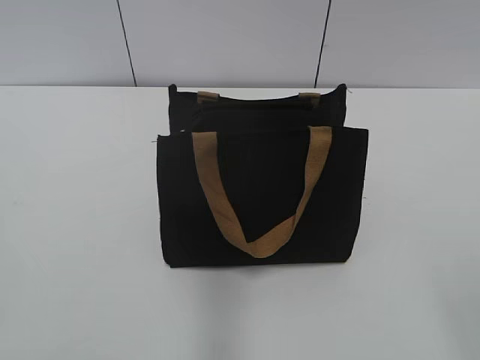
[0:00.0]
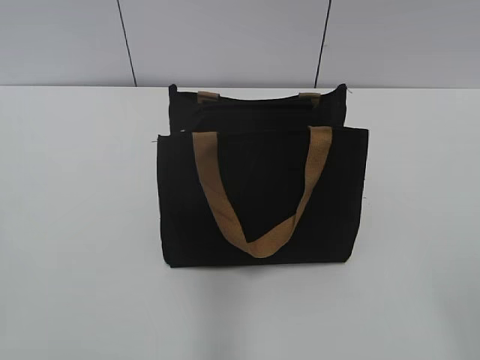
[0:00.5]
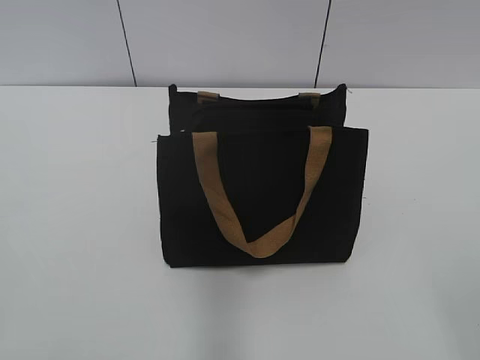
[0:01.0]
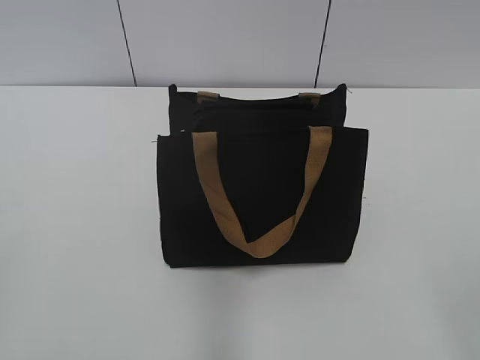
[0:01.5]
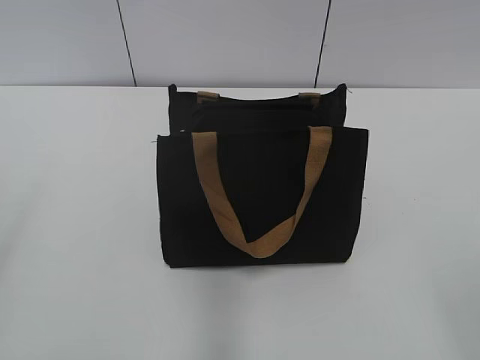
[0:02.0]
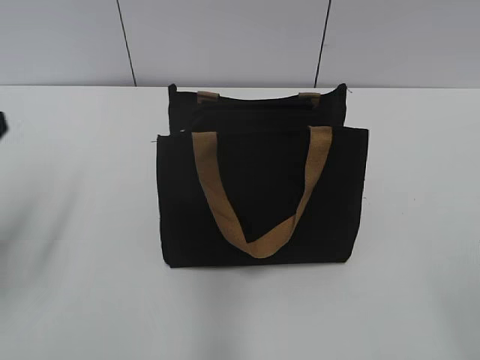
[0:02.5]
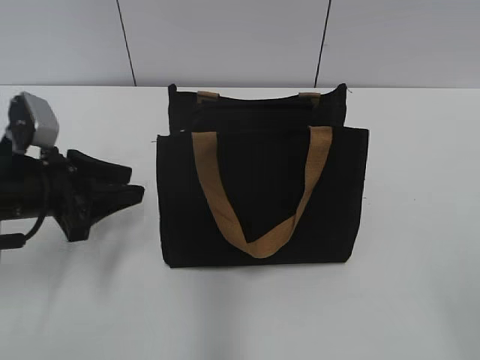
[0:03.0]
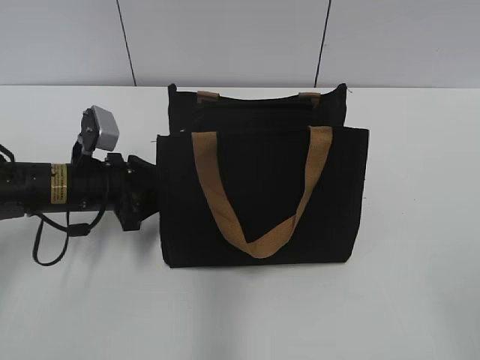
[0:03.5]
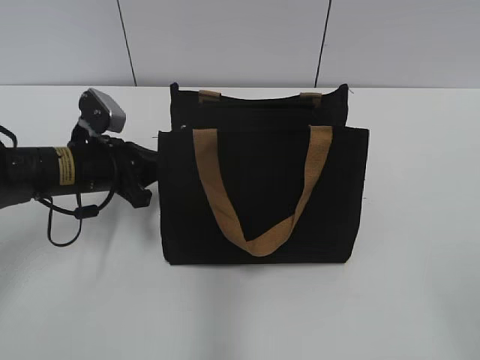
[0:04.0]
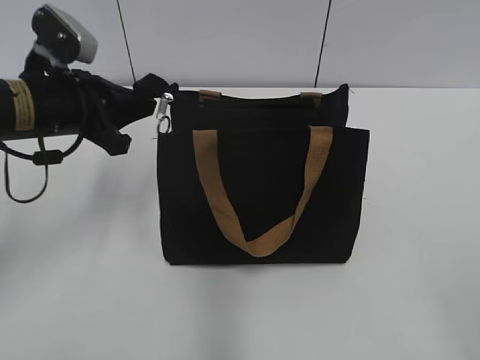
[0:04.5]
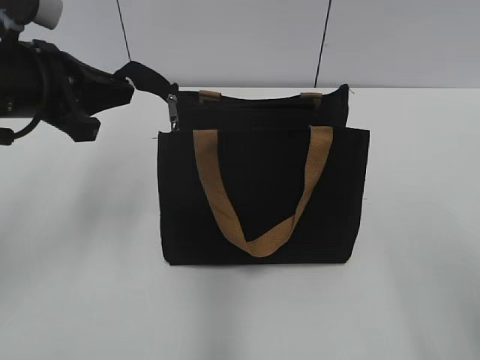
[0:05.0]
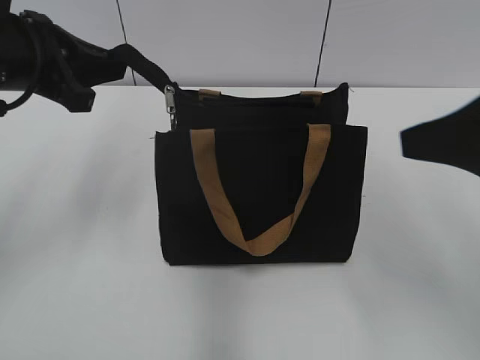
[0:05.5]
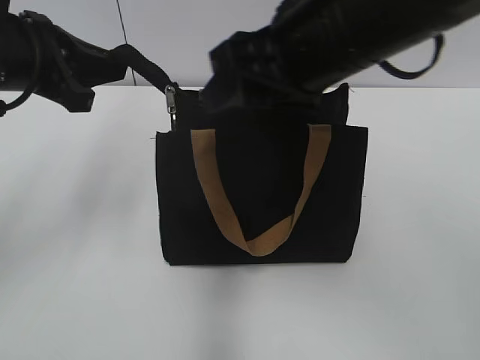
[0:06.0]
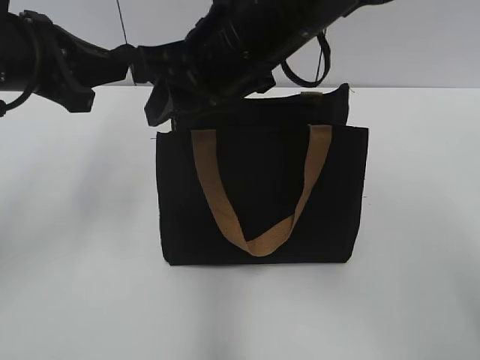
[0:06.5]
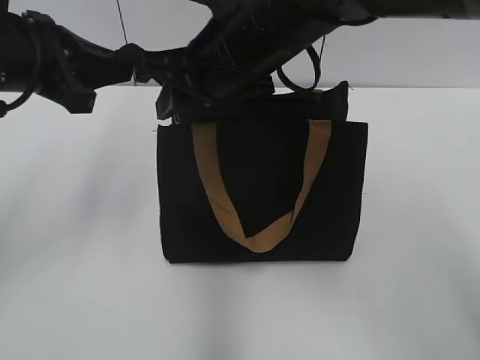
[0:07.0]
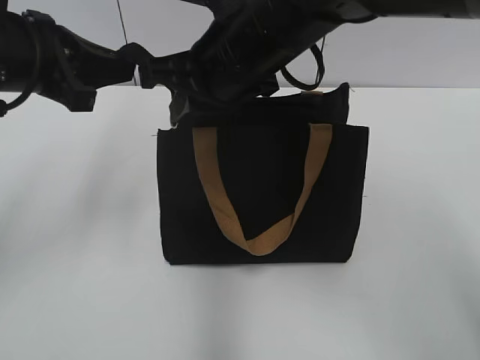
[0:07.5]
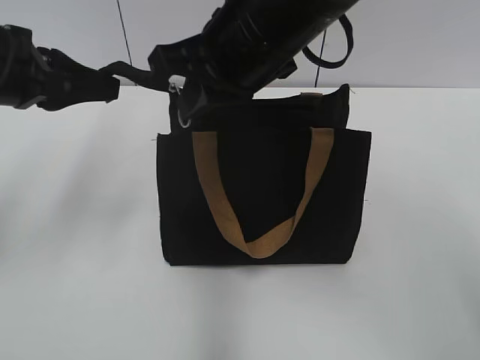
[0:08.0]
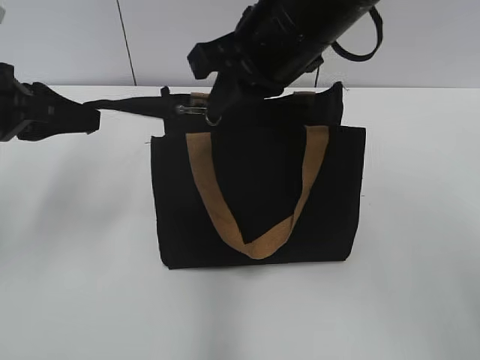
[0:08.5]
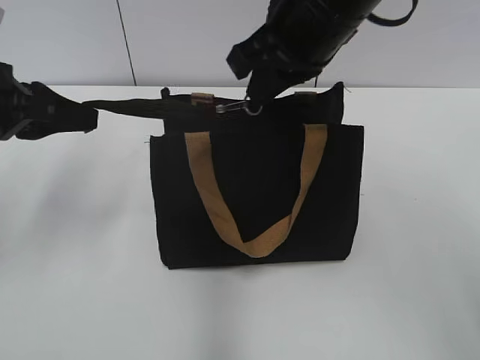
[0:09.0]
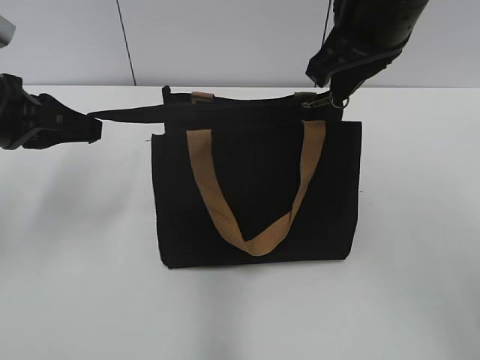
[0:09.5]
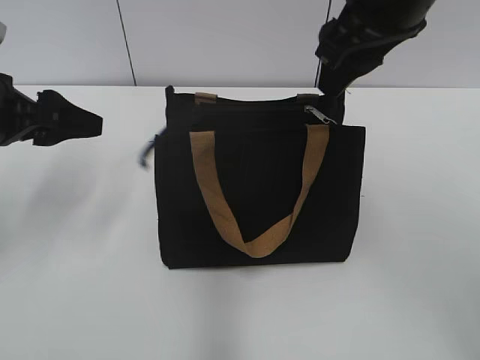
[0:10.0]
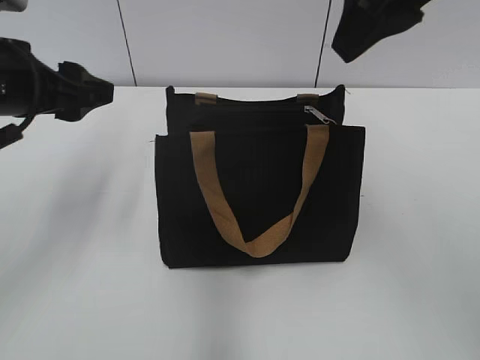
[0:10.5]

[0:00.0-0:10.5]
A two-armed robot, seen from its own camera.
Step, 0:00.0 to 0:09.5: Zip up the bag with your right hand.
0:02.0 to 0:04.0: The left gripper heads forward, downward and to the right, covering approximately 35 cm, and closes.
0:04.0 to 0:06.5: The right gripper is displaced forward and to the left by approximately 40 cm, and closes. The left gripper moves upward, about 15 cm.
0:06.5 to 0:08.5: The left gripper shifts by roughly 5 cm. Meanwhile the right gripper closes its fingers.
0:08.5 to 0:10.5: The right gripper shifts some 15 cm upward and to the right, and opens up, while the left gripper opens up.

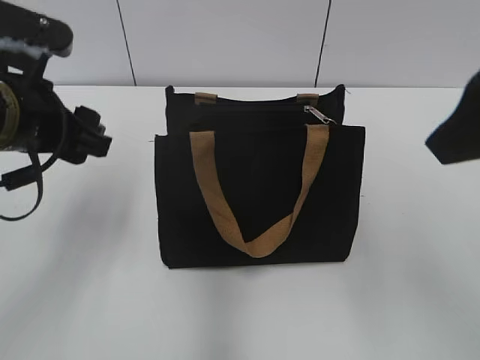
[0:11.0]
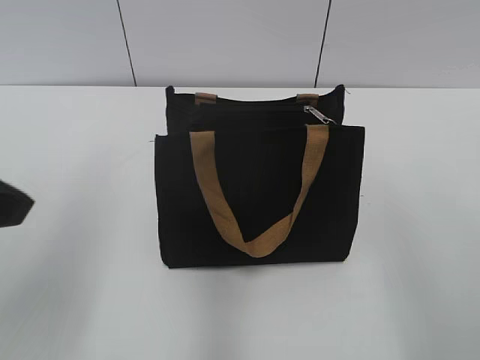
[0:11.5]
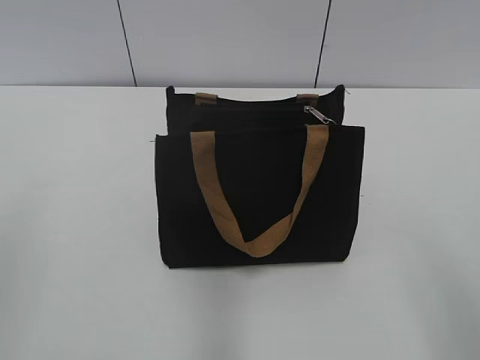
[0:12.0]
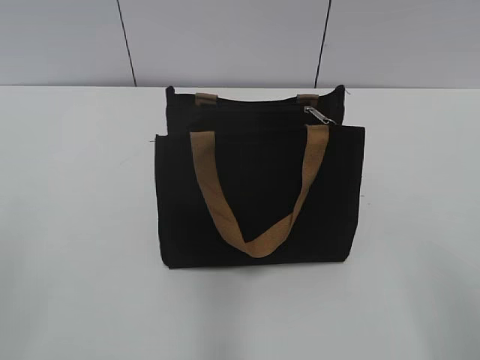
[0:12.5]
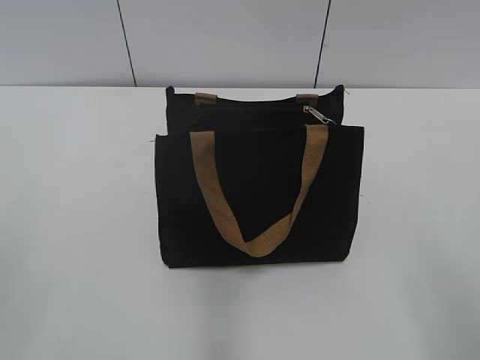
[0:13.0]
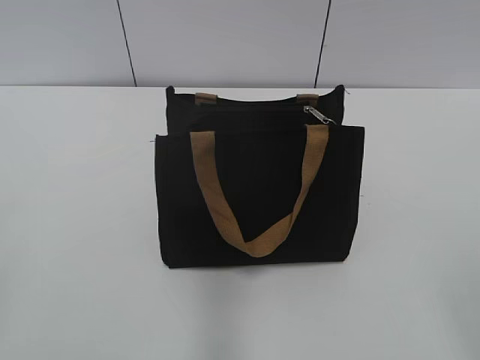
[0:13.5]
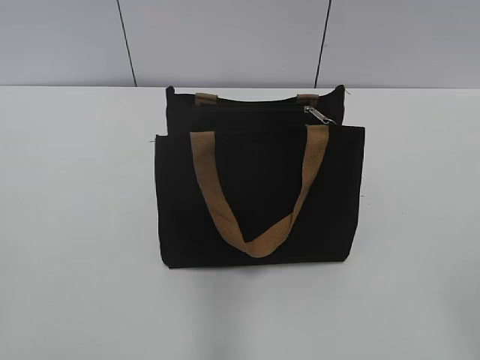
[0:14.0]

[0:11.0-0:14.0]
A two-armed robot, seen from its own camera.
0:11.0 to 0:12.5: The right gripper heads backward, downward and to the right, covering approximately 20 cm, while the left gripper is displaced backward and to the left by approximately 25 cm.
